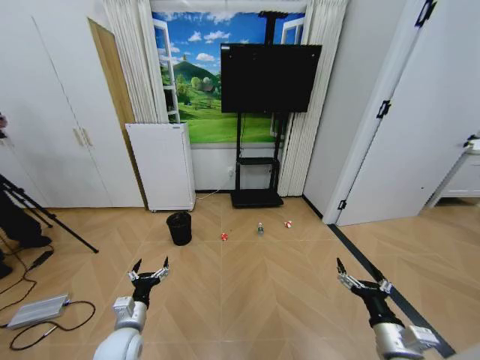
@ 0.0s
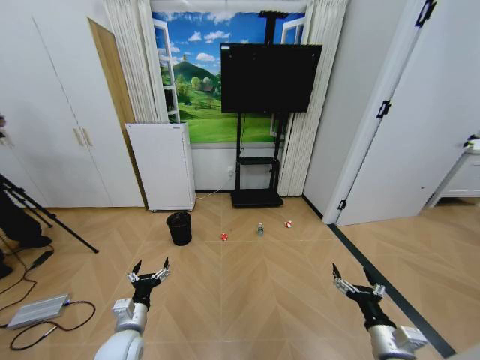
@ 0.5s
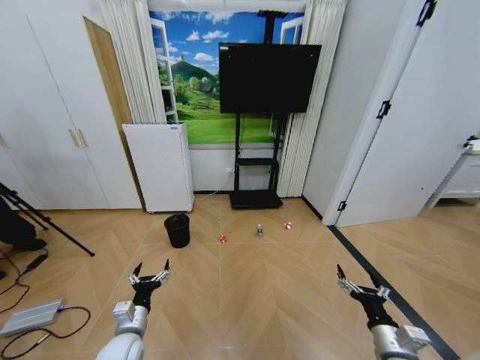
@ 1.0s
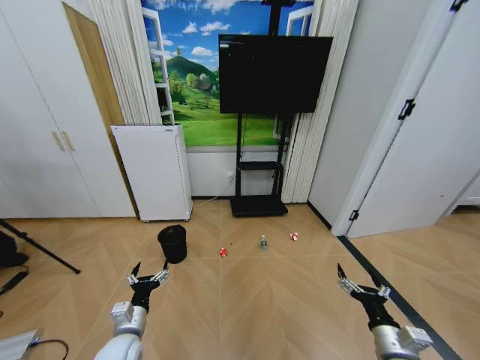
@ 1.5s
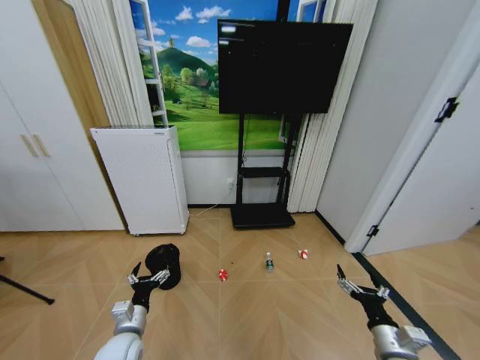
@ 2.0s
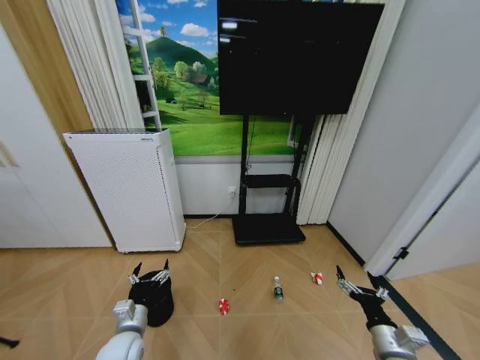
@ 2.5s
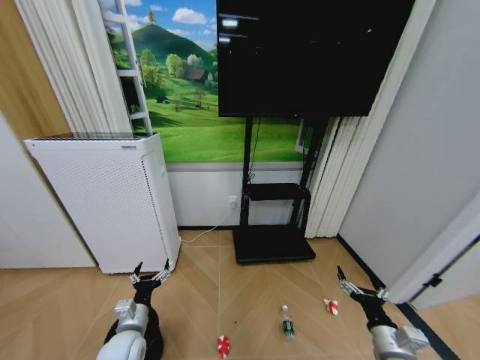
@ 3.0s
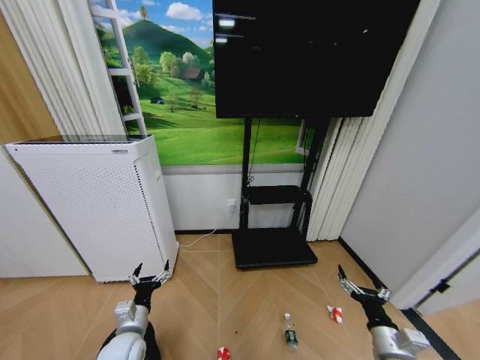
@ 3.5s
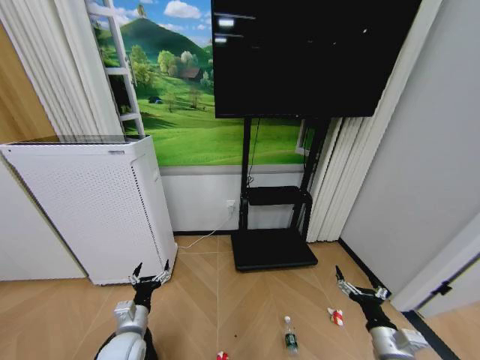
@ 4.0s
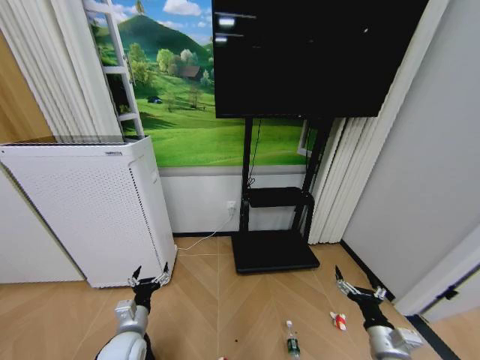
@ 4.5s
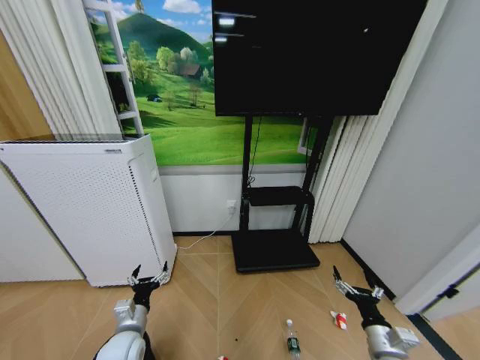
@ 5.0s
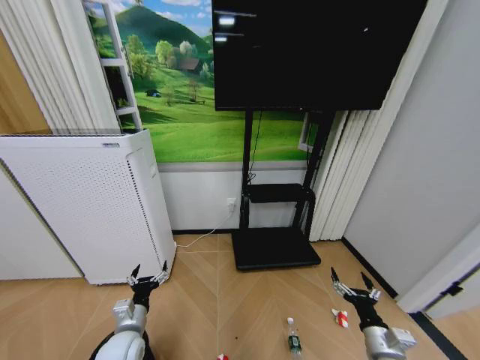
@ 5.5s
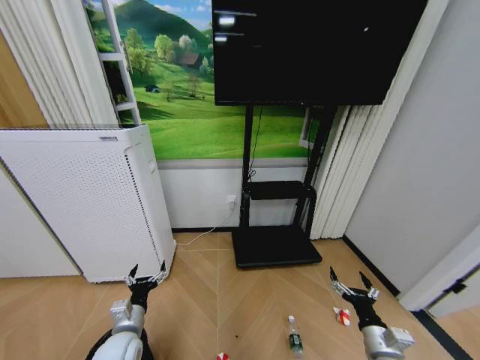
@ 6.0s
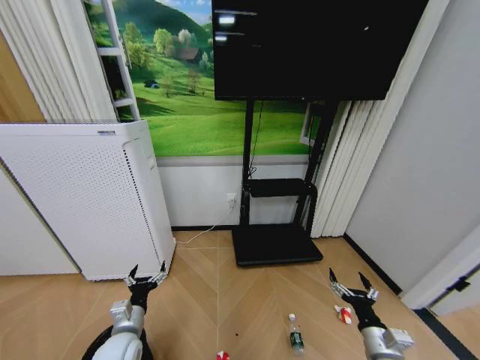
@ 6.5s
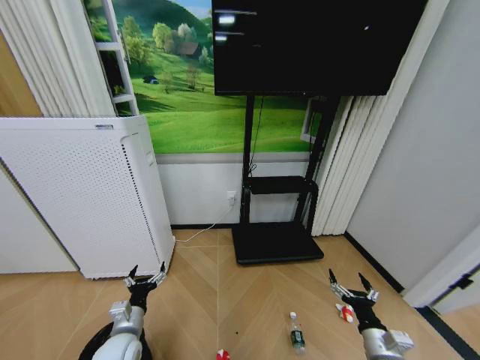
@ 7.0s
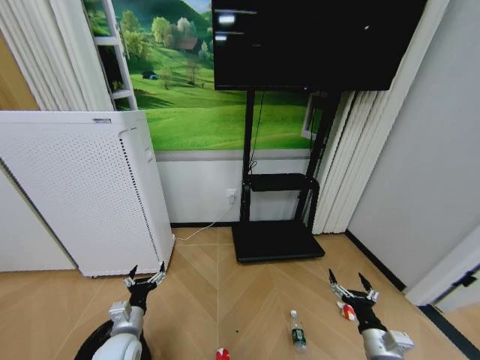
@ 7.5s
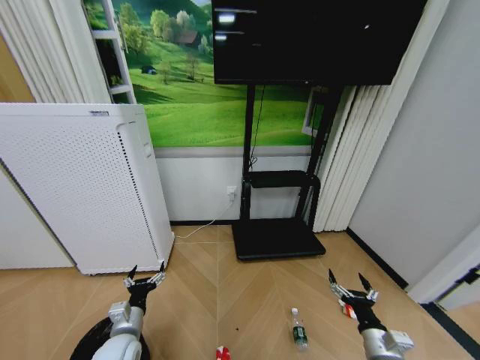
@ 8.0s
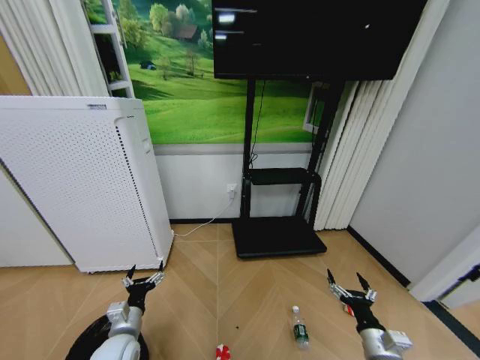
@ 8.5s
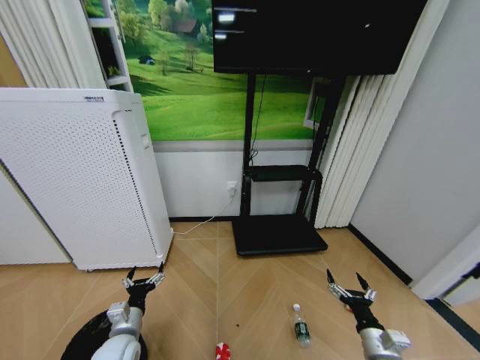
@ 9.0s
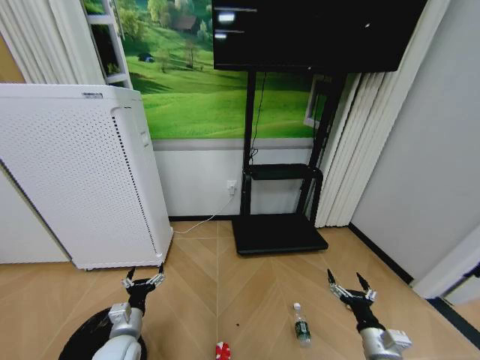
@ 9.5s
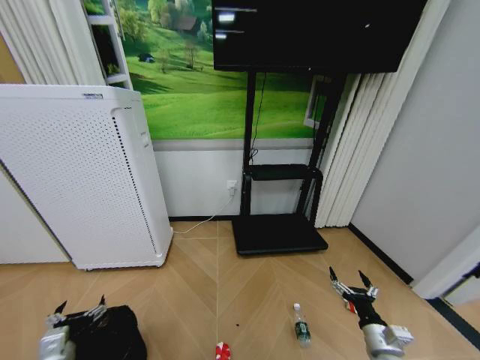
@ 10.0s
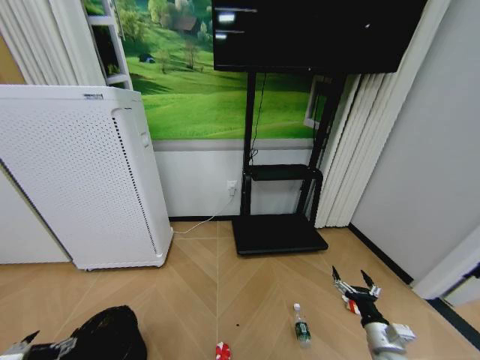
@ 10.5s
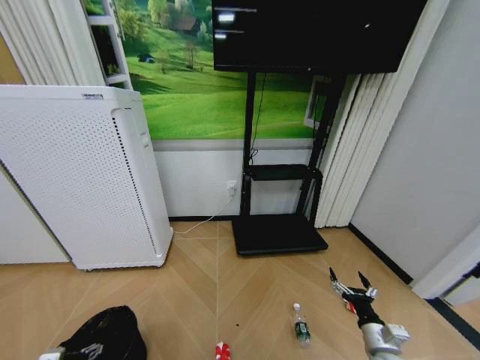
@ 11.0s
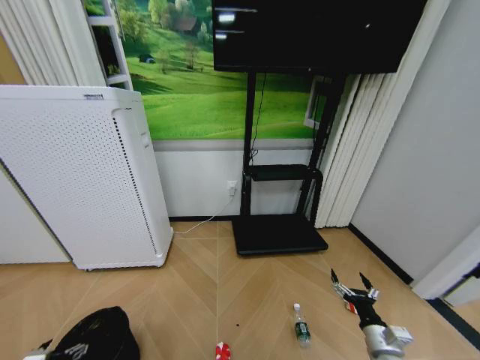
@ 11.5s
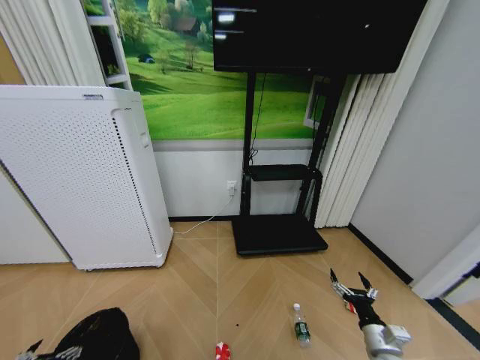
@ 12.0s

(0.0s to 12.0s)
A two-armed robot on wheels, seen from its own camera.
Task of the whole recording: Pick up the trash bin and place the garbage on the floor into it.
8.0s - 10.0s: The left gripper heads to the left and backward, covering approximately 10 cm.
10.0s - 12.0s: The left gripper travels backward and to the left by roughly 10 cm.

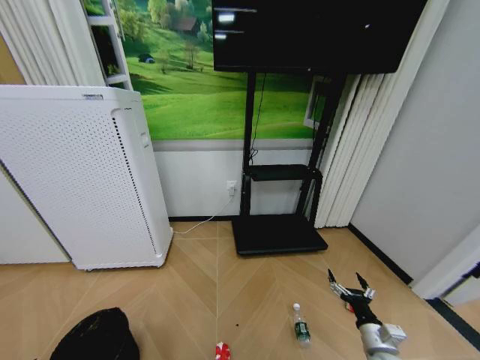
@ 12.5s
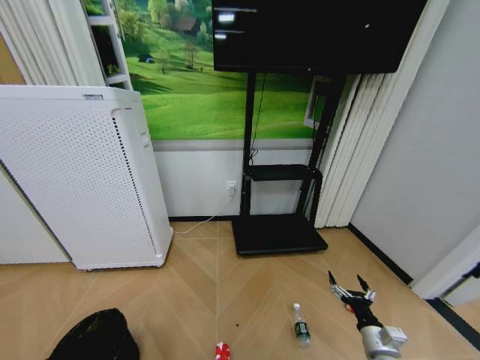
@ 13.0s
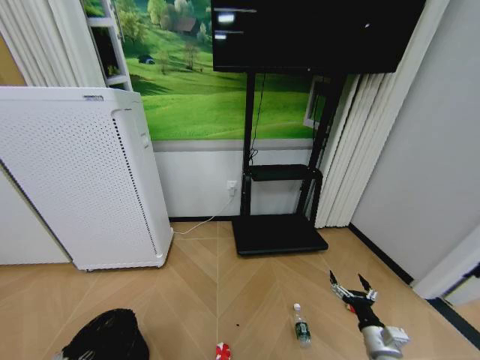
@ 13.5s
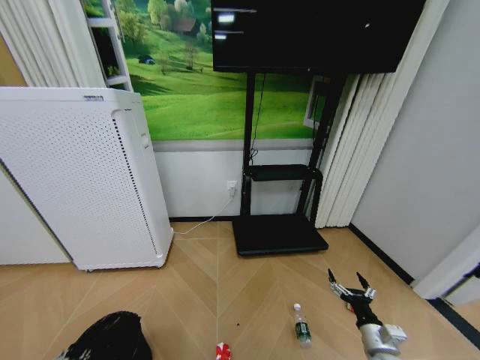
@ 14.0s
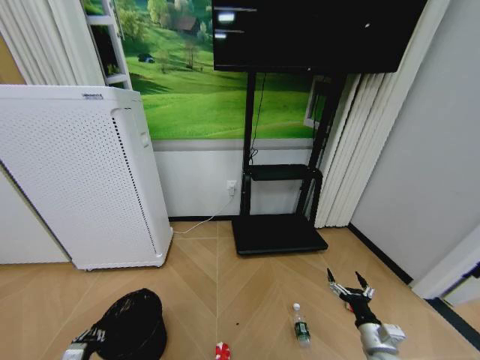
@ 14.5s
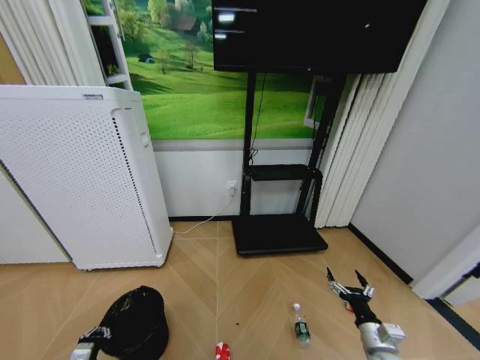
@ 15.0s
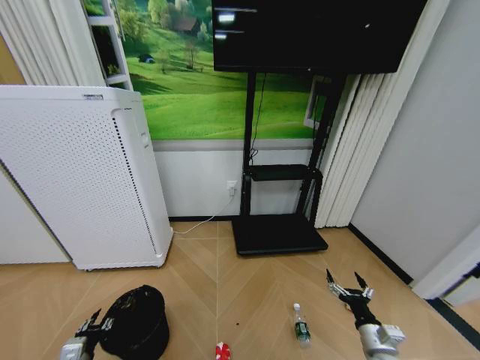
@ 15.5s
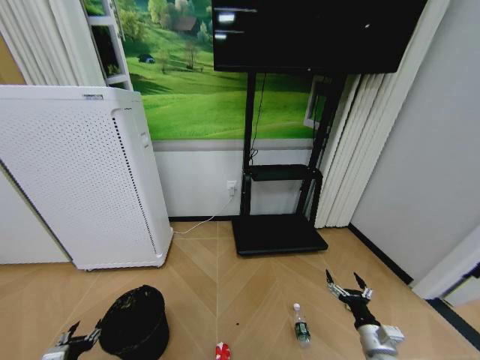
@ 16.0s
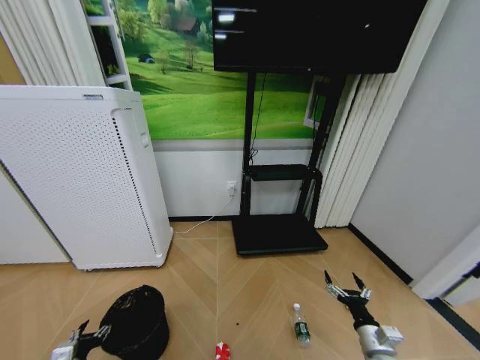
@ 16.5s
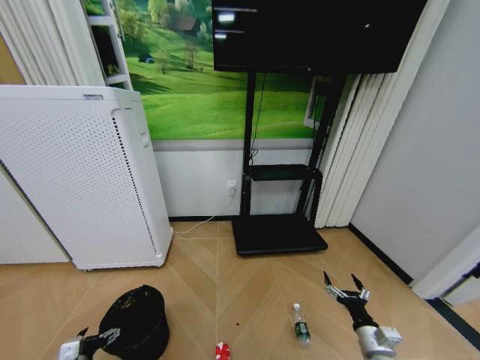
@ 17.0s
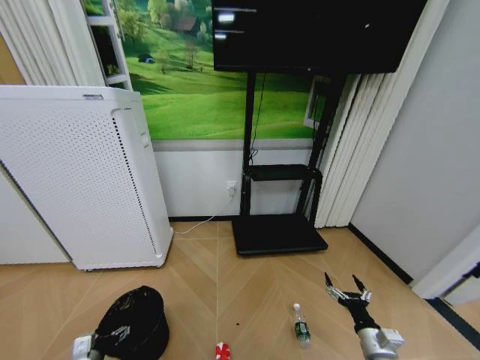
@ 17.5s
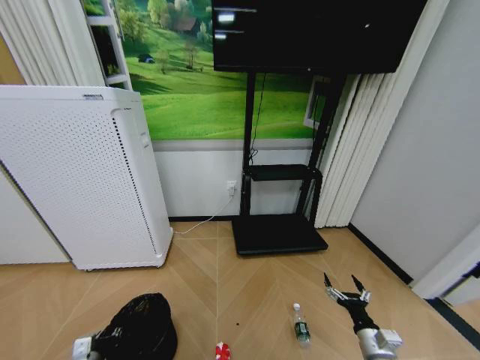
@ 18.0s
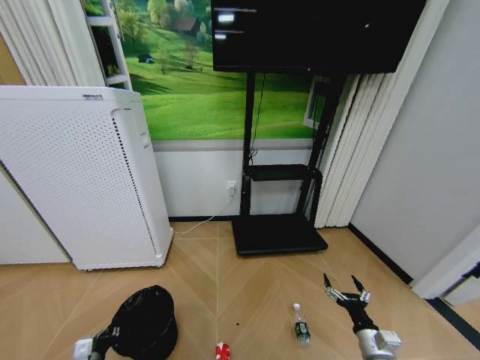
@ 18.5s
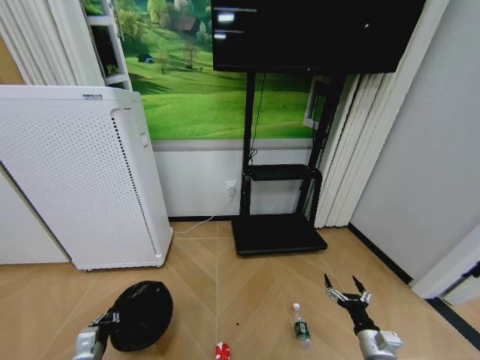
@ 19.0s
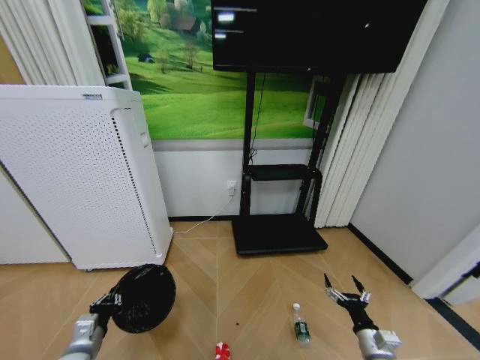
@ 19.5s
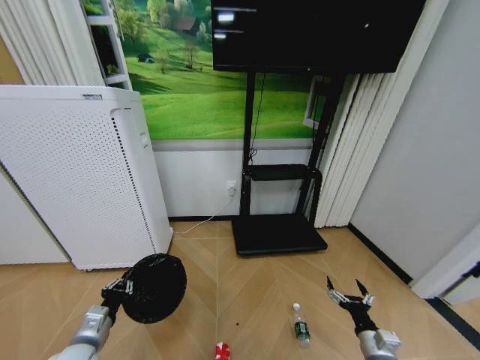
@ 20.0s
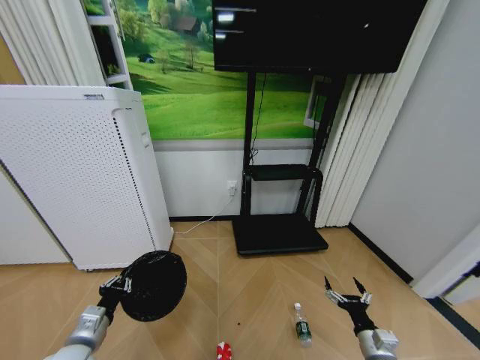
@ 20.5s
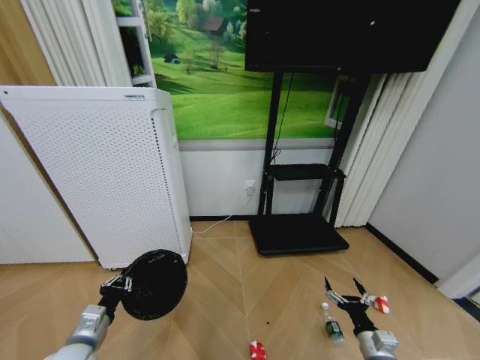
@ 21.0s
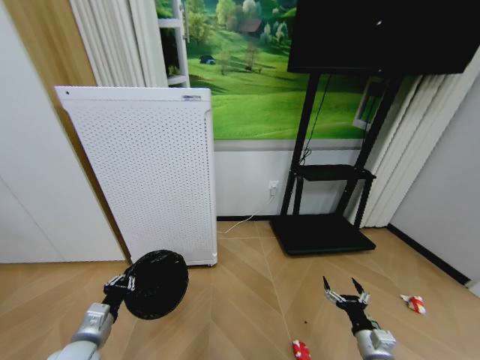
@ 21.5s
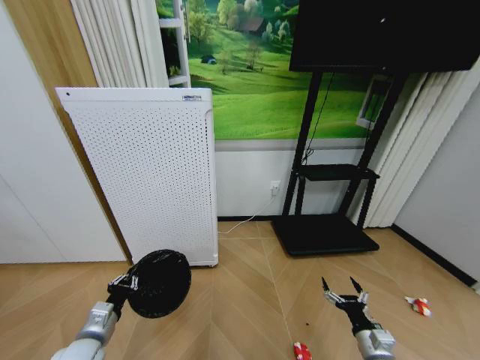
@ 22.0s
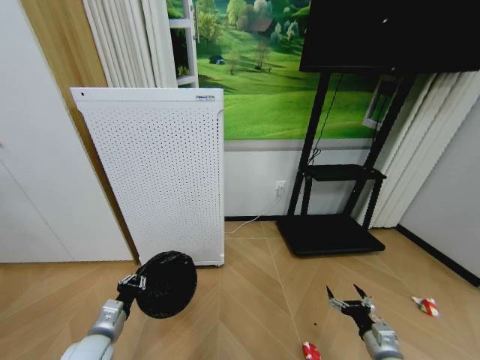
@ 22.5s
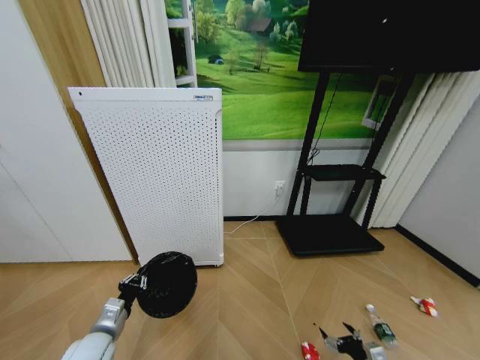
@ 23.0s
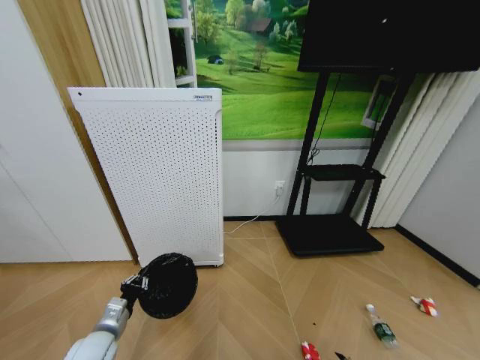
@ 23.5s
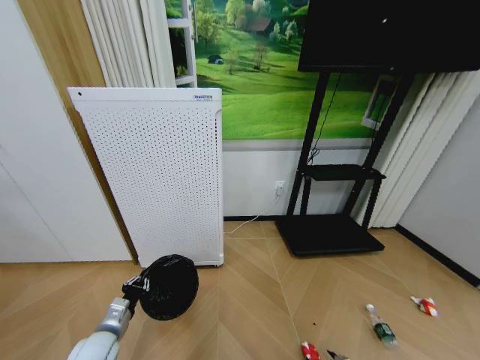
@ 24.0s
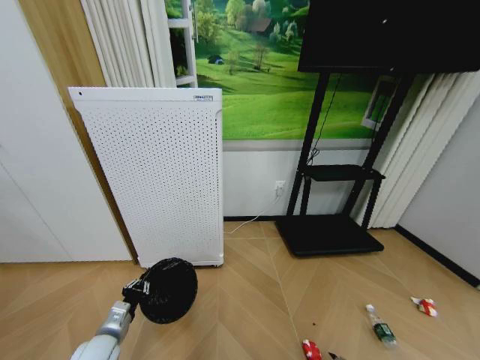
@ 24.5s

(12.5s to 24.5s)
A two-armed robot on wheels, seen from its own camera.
Task of the whole recording: Pick up the trash bin and place the garbage on the floor into it.
12.5s - 14.5s: The left gripper heads to the right, covering about 5 cm, and closes its fingers.
14.5s - 16.5s: The left gripper opens up.
16.5s - 18.5s: The left gripper closes.
18.5s - 20.5s: The left gripper is displaced upward by approximately 10 cm.
22.5s - 24.5s: The right gripper moves downward, approximately 15 cm.

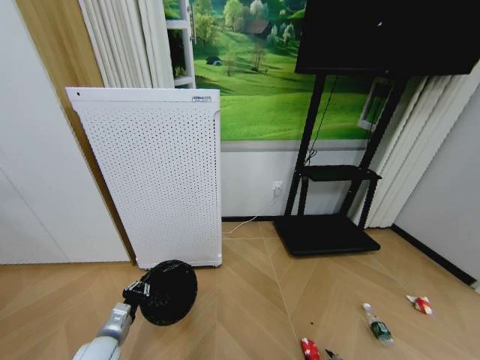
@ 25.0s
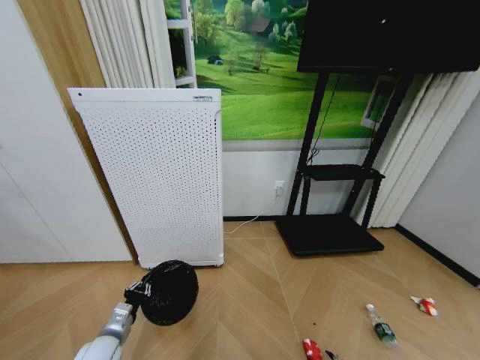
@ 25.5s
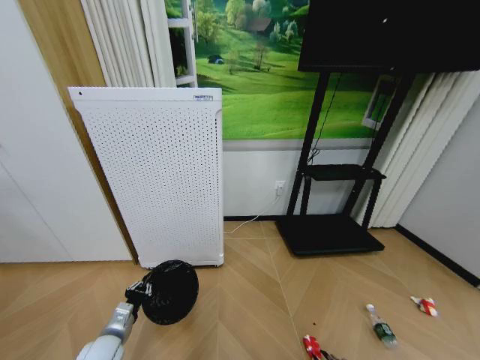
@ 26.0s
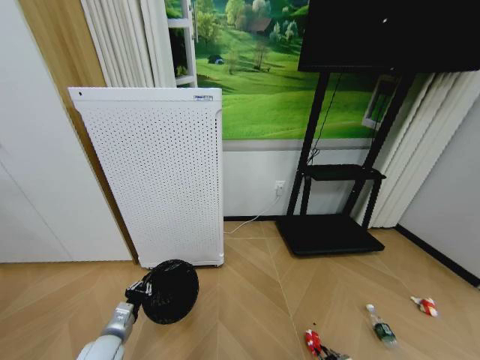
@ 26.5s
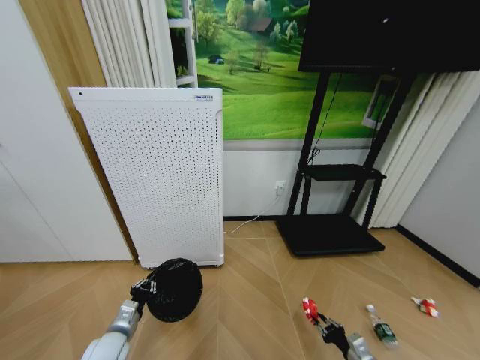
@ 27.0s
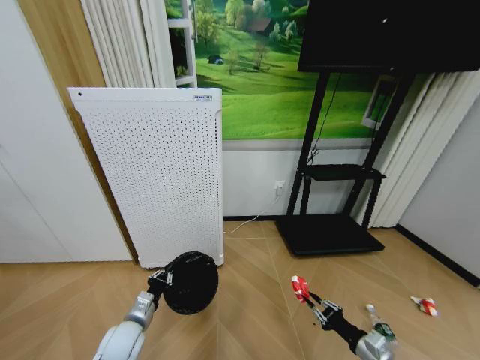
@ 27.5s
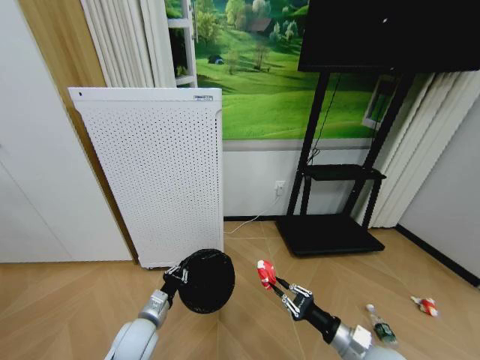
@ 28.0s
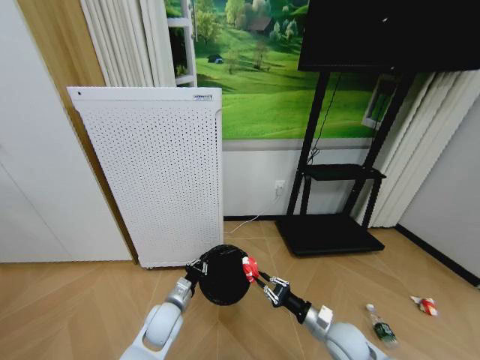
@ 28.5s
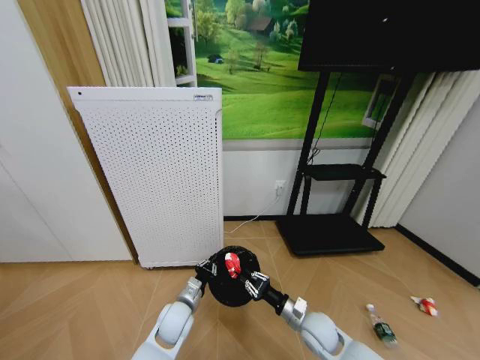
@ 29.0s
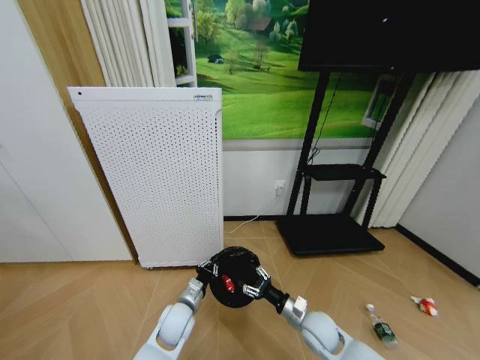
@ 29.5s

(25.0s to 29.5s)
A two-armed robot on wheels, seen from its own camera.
Task of the whole recording: Pick up the trash bin and place the garbage on the floor into it.
25.0s - 27.0s: The right gripper travels upward by about 10 cm, and closes up.
27.0s - 29.5s: The right gripper goes about 20 cm to the left, forward and upward, and opens its fingers, while the left gripper moves to the right and forward, about 20 cm.
